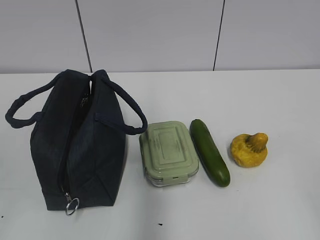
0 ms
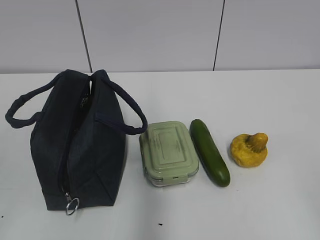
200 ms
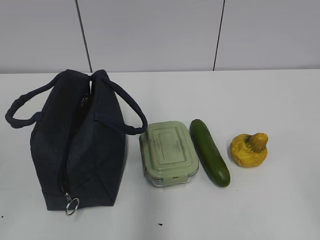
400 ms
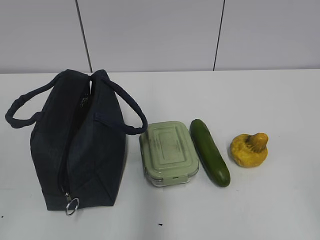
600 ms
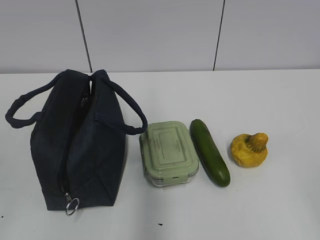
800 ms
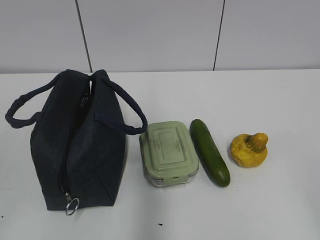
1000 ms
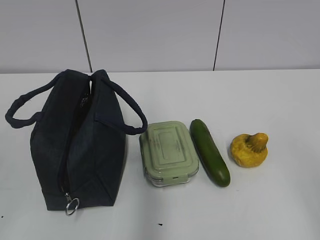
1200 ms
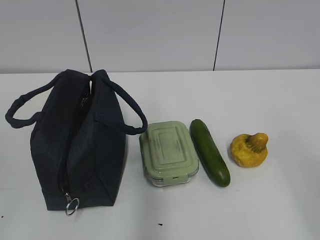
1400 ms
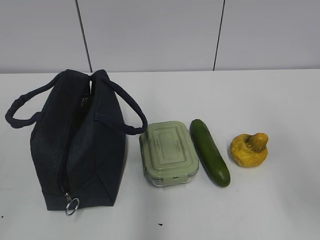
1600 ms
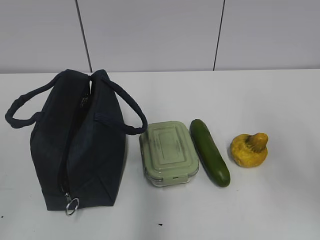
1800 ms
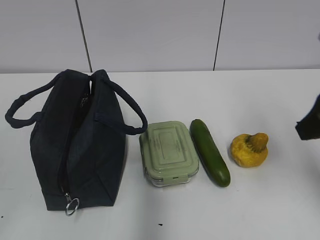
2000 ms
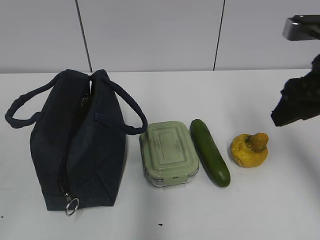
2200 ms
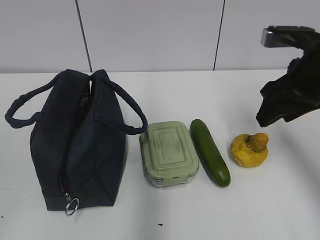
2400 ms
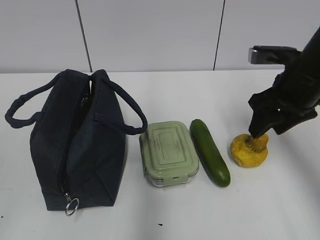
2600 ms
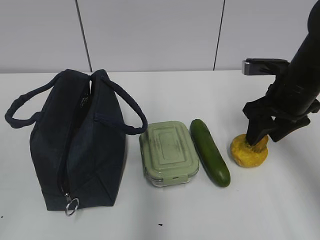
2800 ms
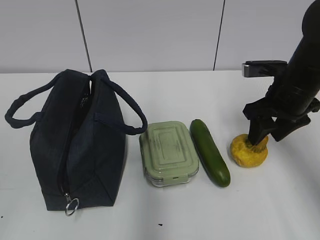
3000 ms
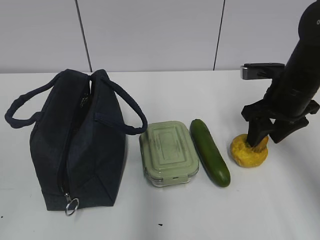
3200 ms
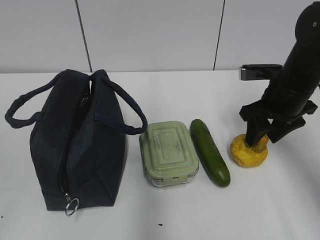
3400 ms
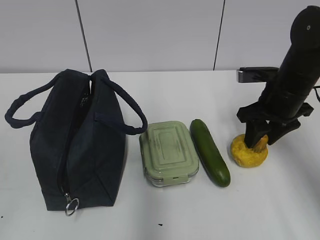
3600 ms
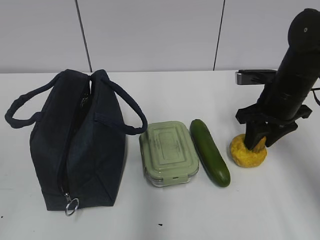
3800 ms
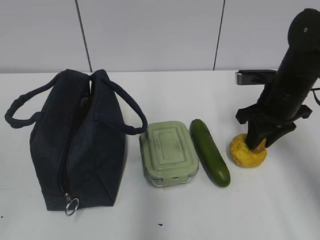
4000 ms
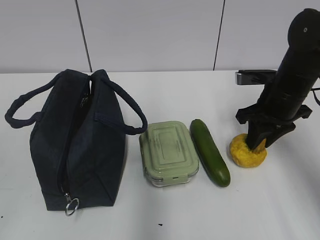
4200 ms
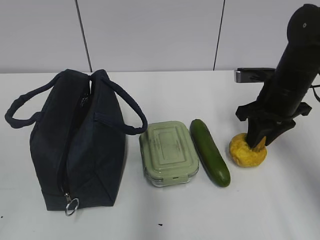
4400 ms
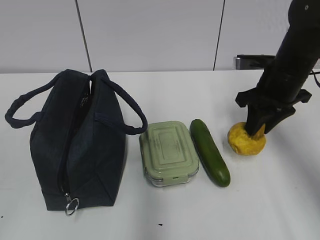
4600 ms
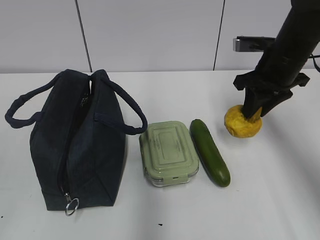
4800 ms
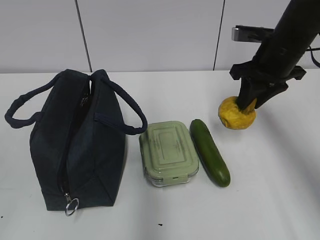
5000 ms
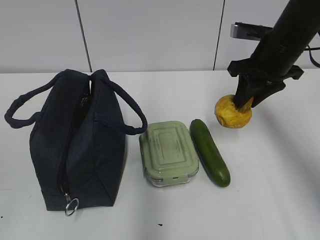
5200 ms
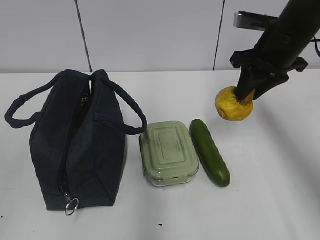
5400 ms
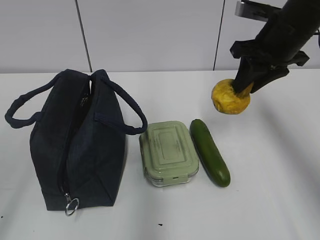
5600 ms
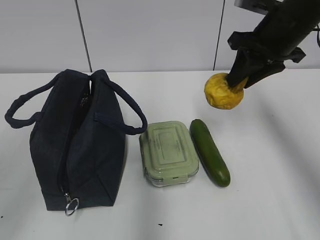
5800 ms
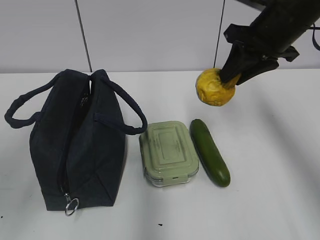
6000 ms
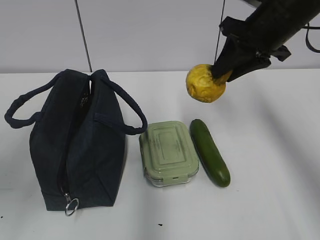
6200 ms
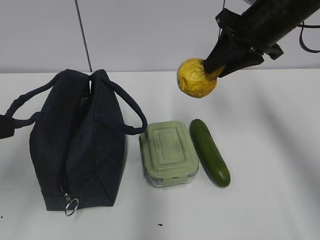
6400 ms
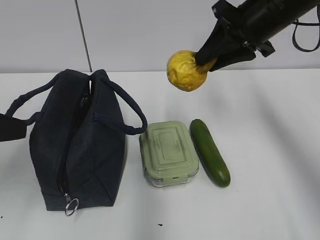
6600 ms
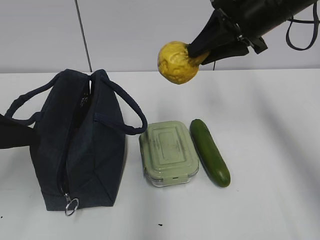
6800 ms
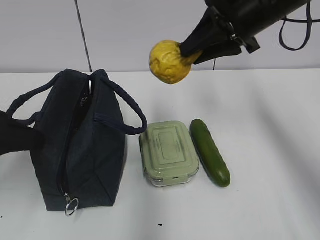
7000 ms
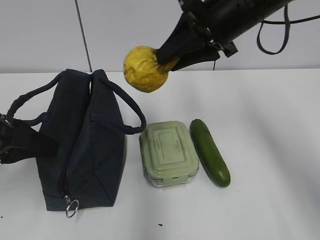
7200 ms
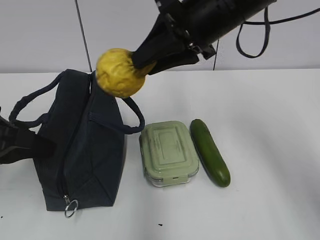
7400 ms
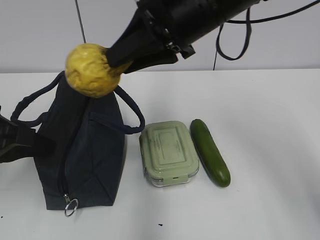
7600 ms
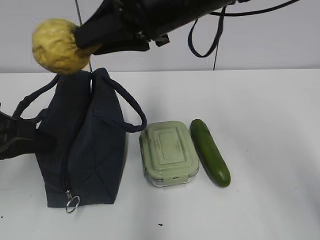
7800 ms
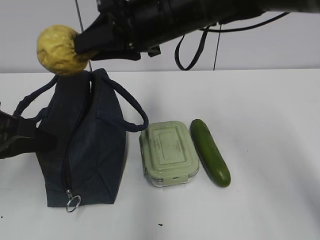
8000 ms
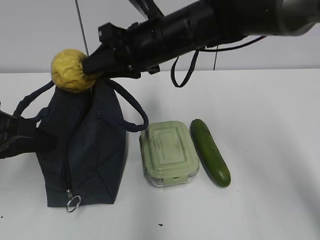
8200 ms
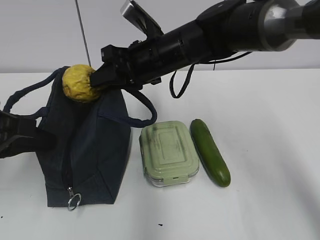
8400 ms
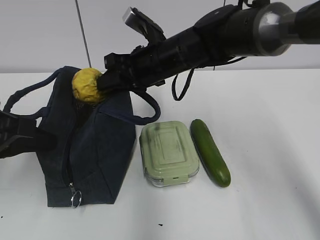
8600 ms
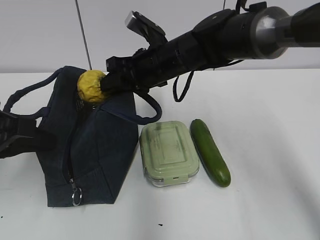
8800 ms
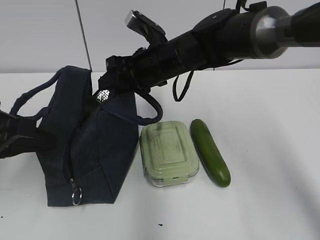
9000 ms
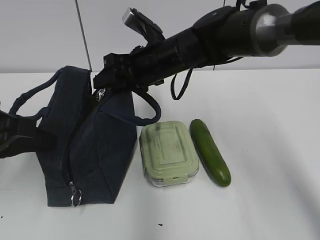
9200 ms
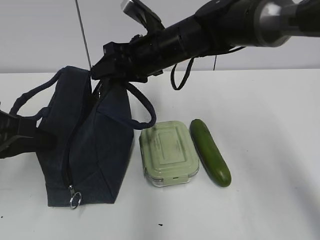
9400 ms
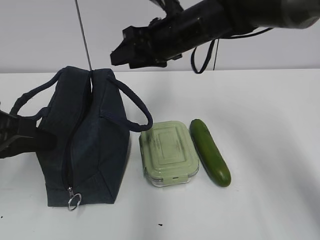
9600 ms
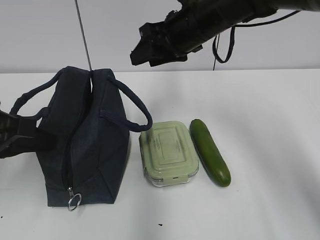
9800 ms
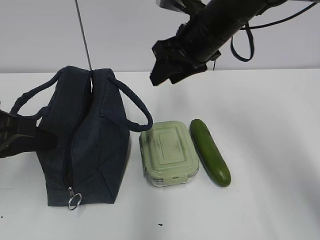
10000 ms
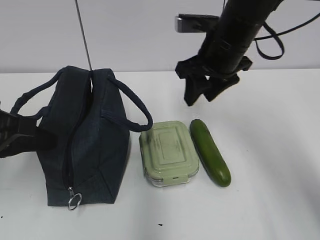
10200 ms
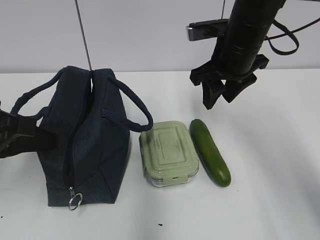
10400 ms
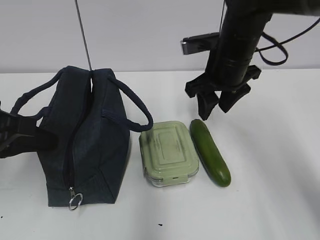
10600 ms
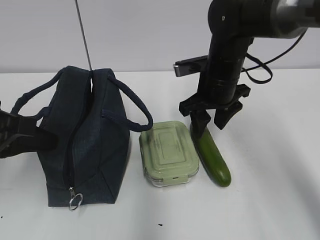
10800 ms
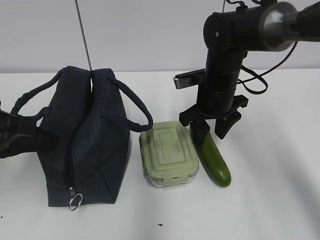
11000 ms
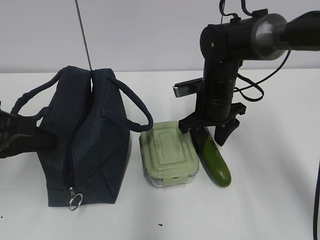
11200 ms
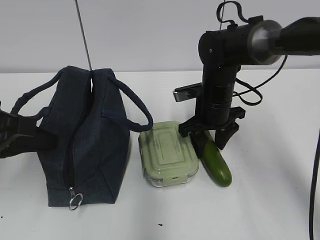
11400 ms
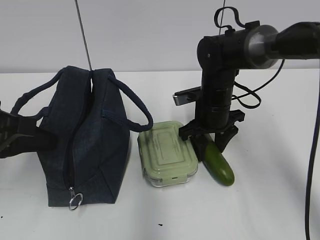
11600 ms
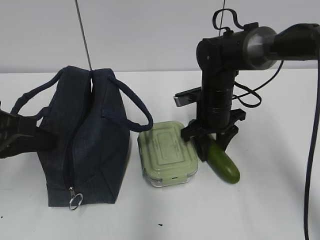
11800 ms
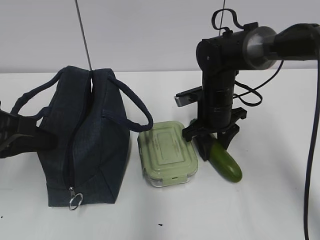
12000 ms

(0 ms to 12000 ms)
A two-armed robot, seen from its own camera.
1600 ms - 3000 ms: The right gripper is displaced forward and downward by about 25 cm.
3000 ms - 4400 ms: The right gripper closes its fingers.
4400 ms - 6000 ms: The right gripper heads upward, covering roughly 10 cm. Meanwhile the left gripper moves forward, approximately 10 cm.
6000 ms - 7600 ms: The right gripper is displaced to the left by roughly 15 cm. The left gripper shifts approximately 15 cm forward and downward, and closes its fingers.
7600 ms - 9000 ms: The right gripper travels downward and forward by roughly 15 cm.
9000 ms - 10400 ms: The right gripper travels to the right by approximately 10 cm.
10400 ms - 12000 ms: The right gripper moves downward, roughly 15 cm.

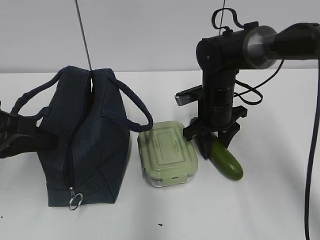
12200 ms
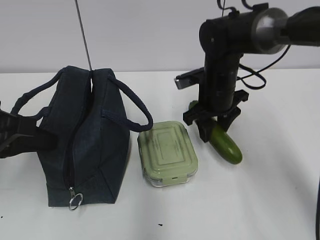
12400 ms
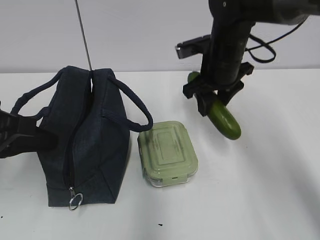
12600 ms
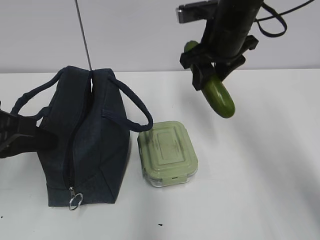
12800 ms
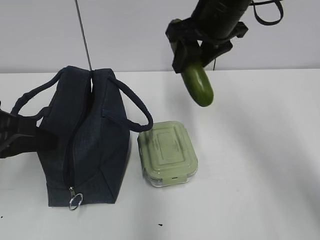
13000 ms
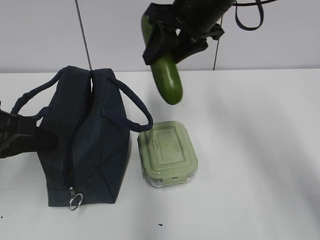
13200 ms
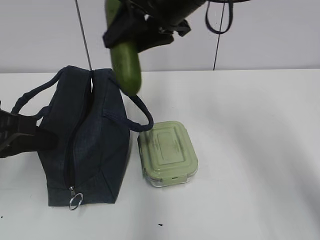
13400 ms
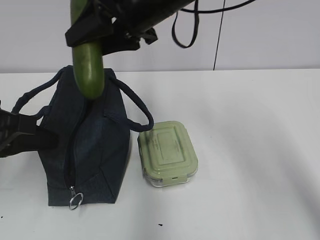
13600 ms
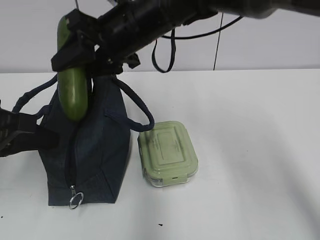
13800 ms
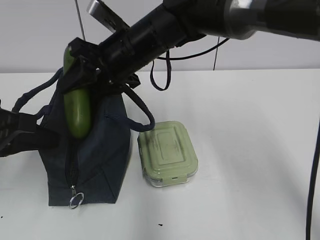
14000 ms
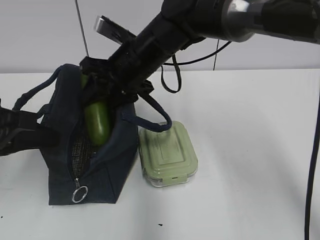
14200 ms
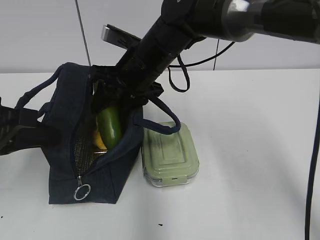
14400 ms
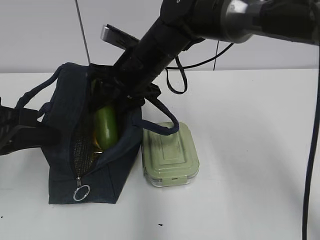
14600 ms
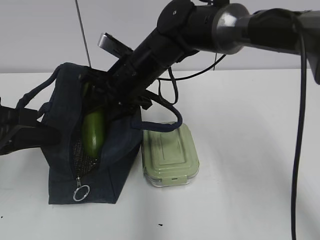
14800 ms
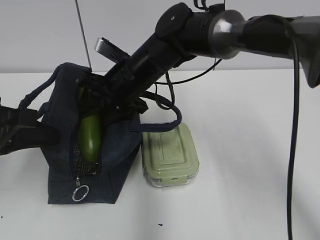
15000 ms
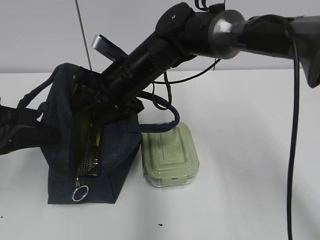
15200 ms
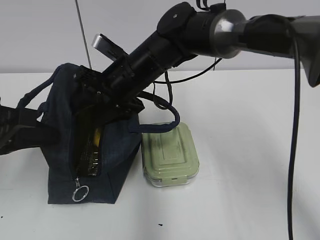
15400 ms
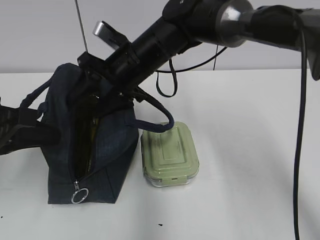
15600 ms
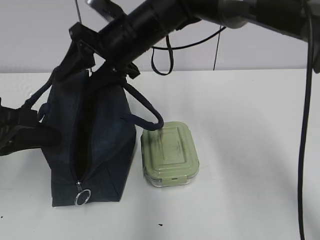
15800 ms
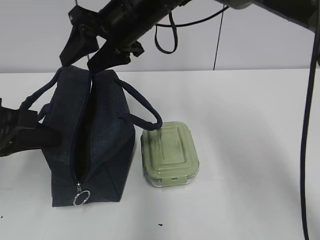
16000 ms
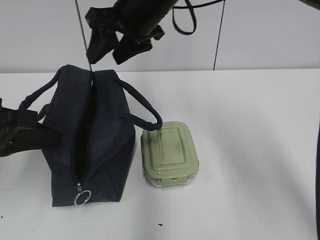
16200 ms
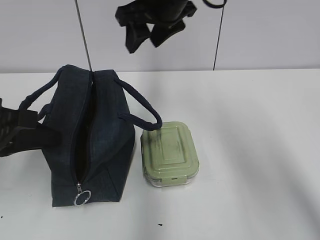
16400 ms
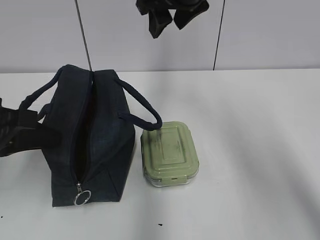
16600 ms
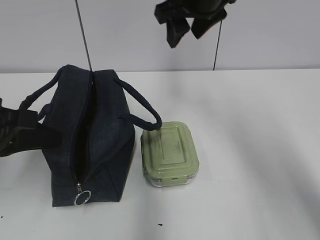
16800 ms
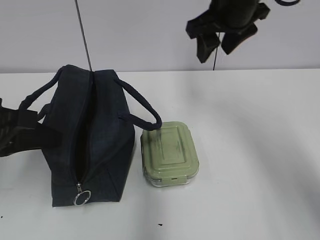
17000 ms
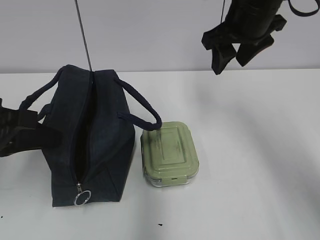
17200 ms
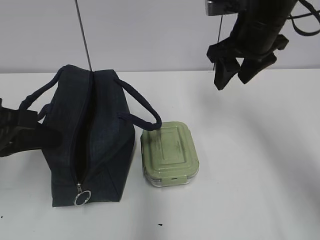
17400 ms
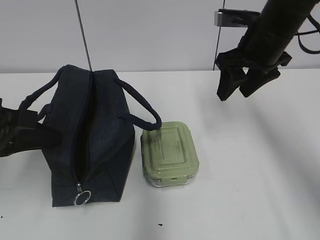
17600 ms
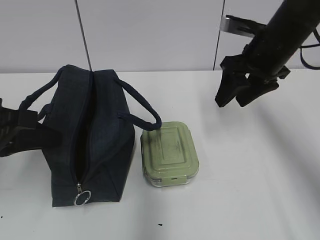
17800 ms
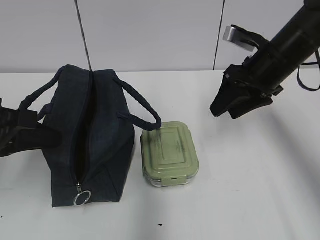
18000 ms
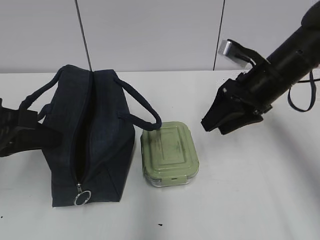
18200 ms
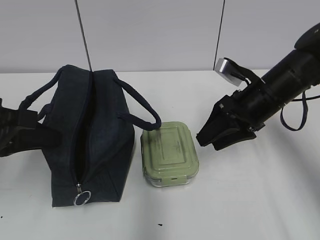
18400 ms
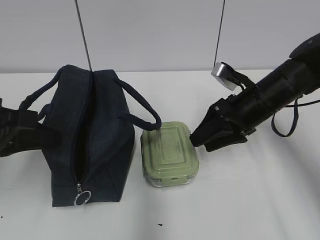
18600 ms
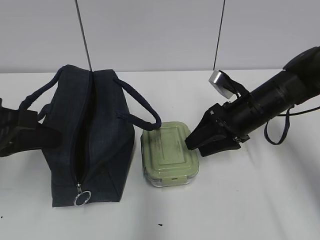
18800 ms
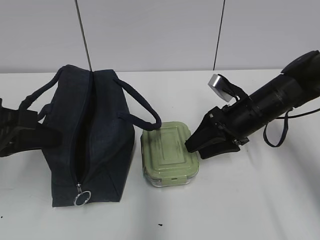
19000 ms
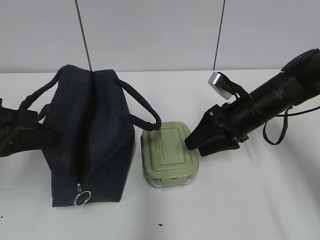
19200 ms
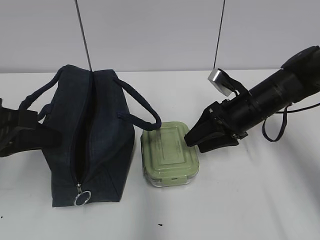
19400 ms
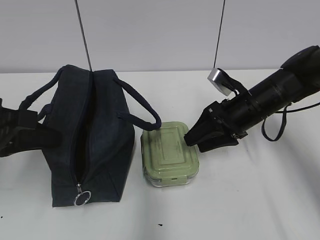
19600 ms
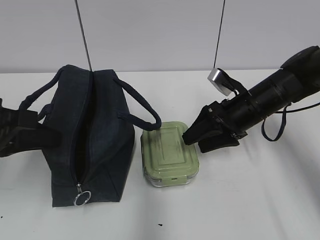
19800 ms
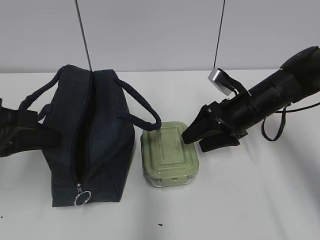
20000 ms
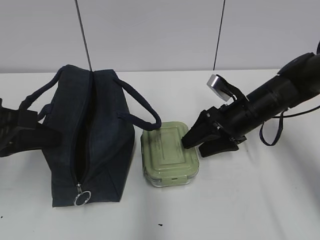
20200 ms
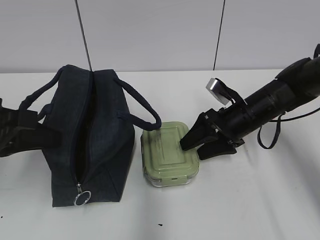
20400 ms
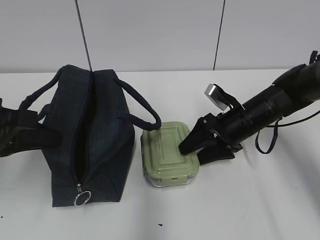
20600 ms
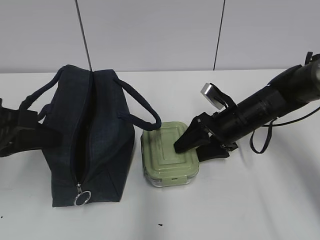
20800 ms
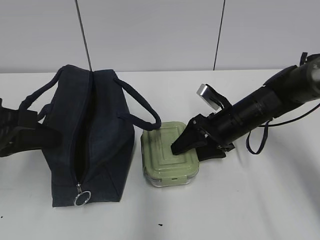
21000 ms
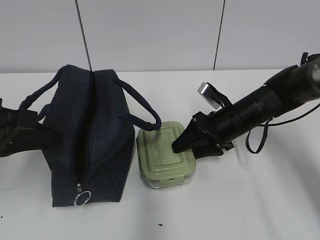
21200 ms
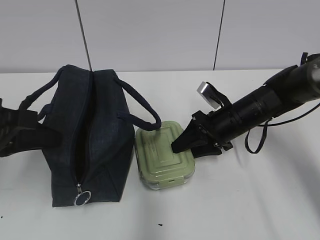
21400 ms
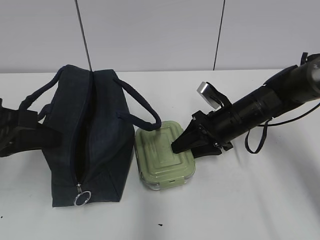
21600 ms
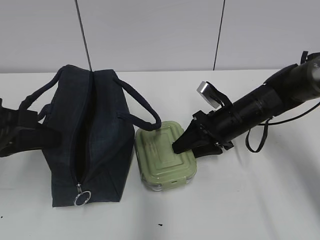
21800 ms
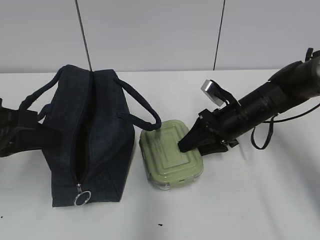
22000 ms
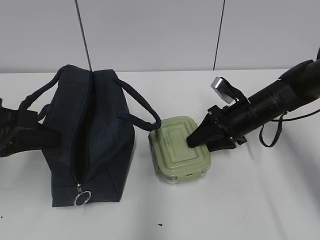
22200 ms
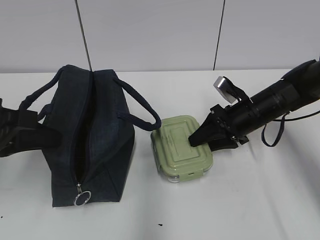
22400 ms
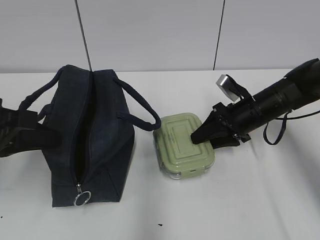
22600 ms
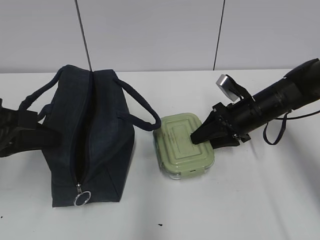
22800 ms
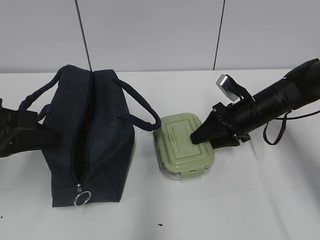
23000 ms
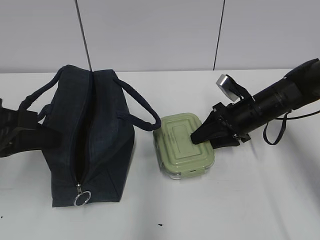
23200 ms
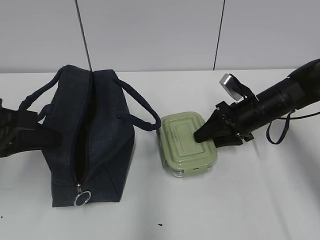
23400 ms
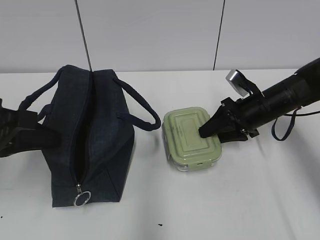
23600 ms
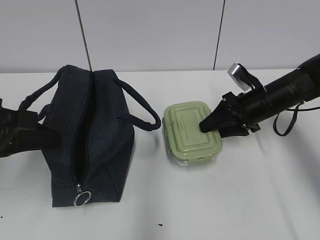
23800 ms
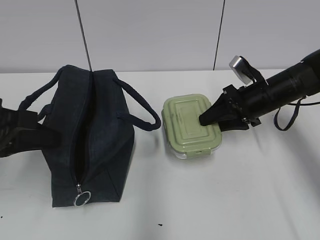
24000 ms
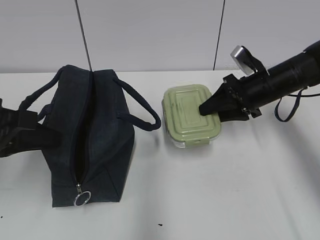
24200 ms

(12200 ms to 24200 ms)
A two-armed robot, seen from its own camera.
12200 ms - 13800 ms: The right gripper moves upward and to the left, approximately 20 cm.
13800 ms - 15200 ms: The right gripper is displaced downward by some 10 cm.
15200 ms - 16600 ms: The right gripper travels upward and to the right by some 15 cm.
16600 ms - 18200 ms: The right gripper heads downward and to the right, covering roughly 20 cm.
18200 ms - 19800 ms: The right gripper goes about 5 cm downward.
19800 ms - 22600 ms: The grippers move only a little.
22600 ms - 24200 ms: The right gripper travels upward by about 5 cm.
